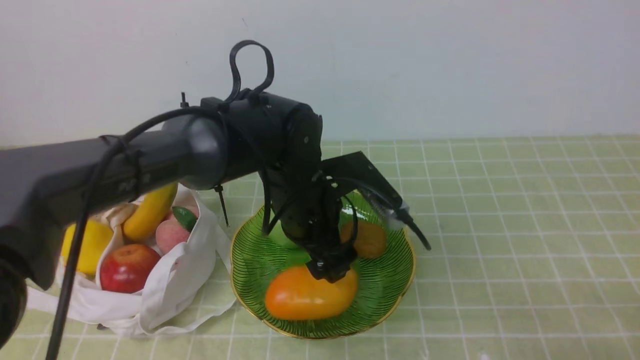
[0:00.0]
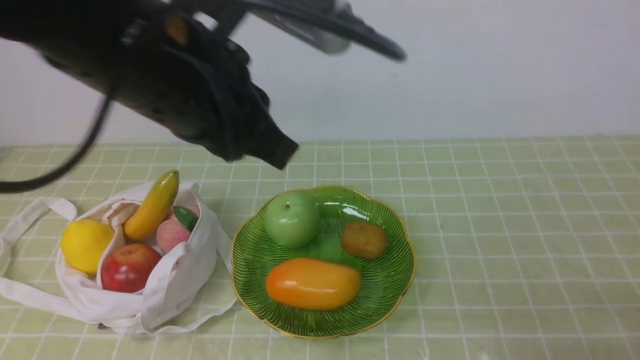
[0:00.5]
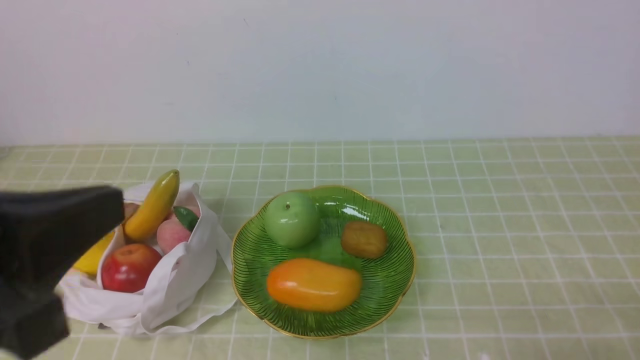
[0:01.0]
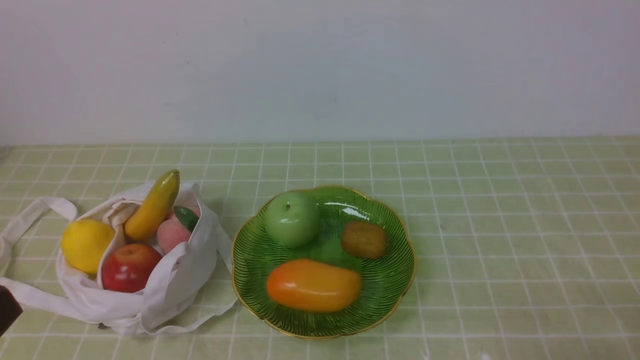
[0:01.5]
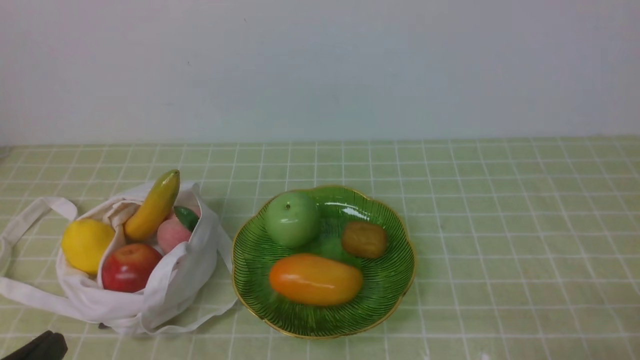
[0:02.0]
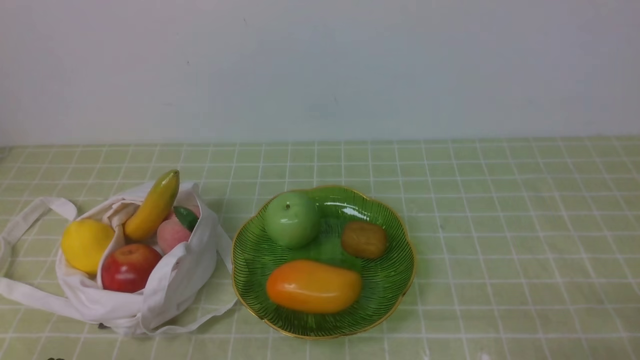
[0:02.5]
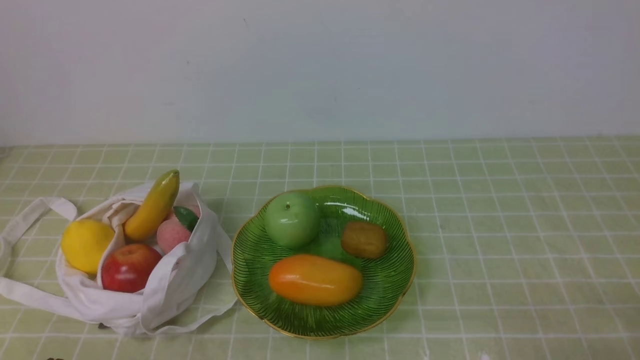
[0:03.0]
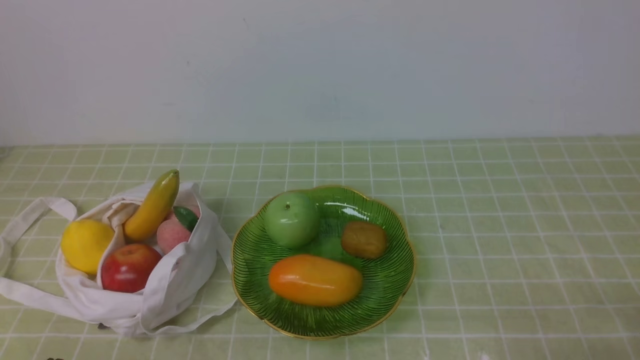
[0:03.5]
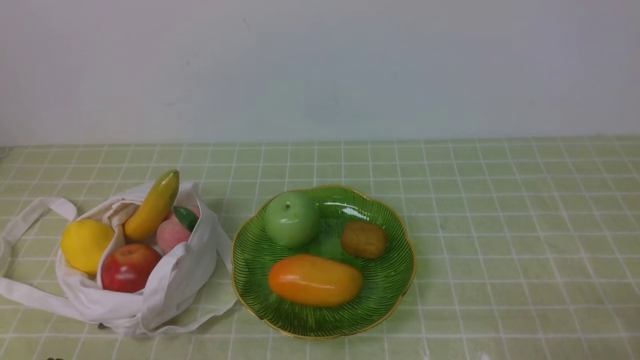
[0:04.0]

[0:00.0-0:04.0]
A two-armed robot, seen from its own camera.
0:00.0 to 0:02.0: The left gripper shifts roughly 35 cm backward and to the left, and closes its fingers.
